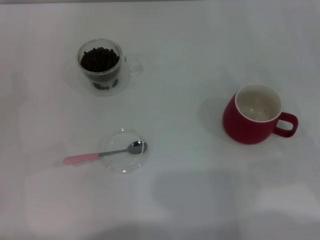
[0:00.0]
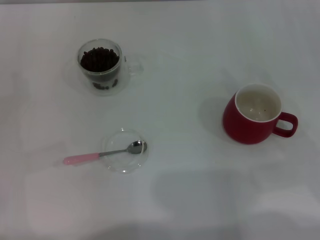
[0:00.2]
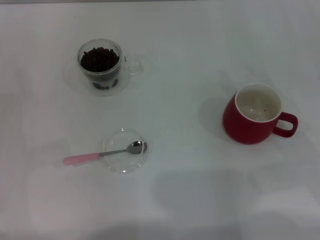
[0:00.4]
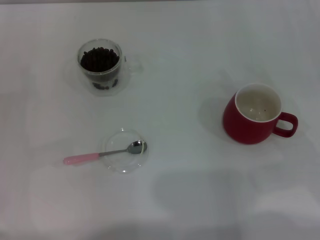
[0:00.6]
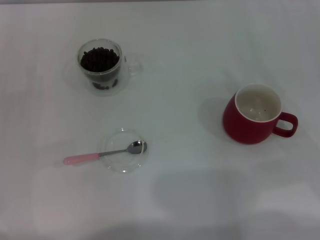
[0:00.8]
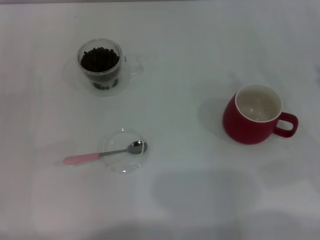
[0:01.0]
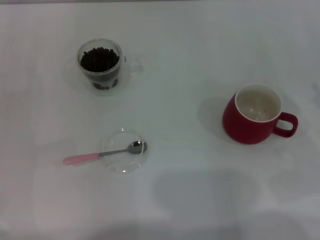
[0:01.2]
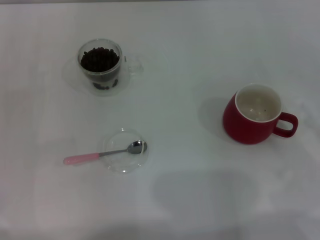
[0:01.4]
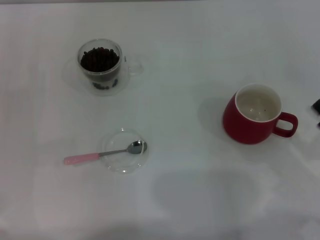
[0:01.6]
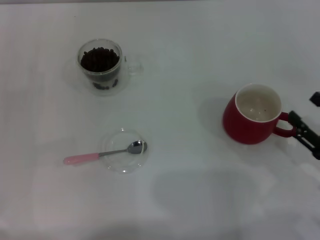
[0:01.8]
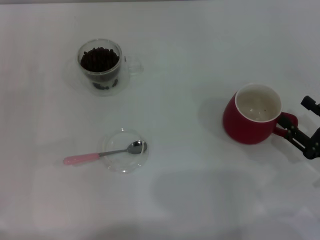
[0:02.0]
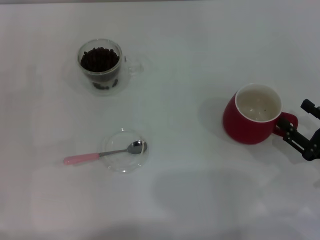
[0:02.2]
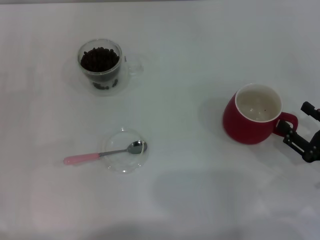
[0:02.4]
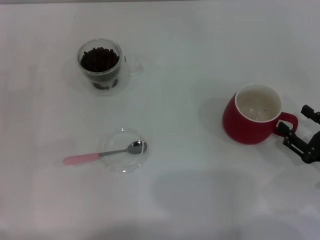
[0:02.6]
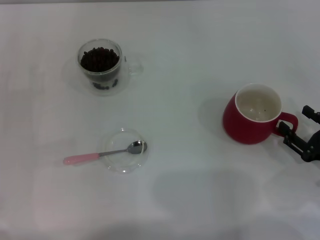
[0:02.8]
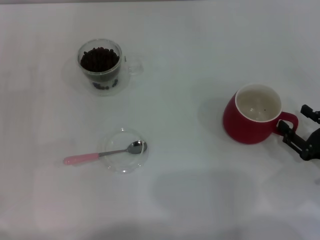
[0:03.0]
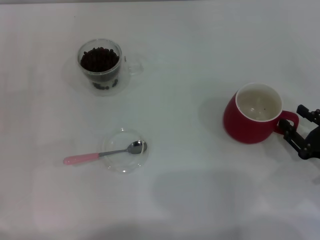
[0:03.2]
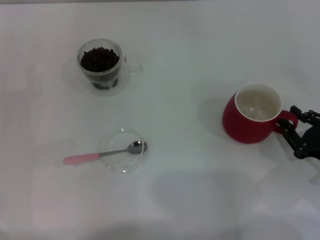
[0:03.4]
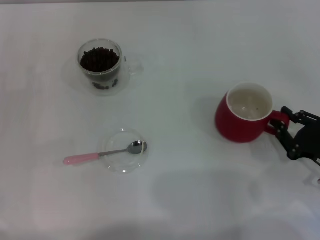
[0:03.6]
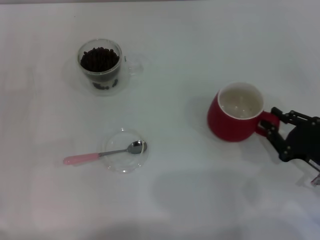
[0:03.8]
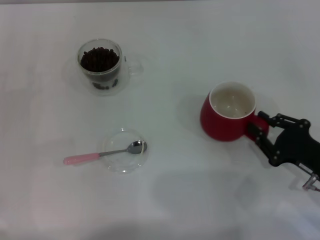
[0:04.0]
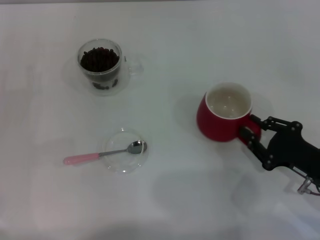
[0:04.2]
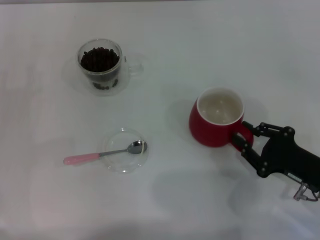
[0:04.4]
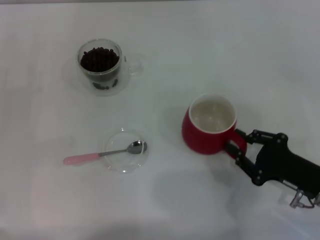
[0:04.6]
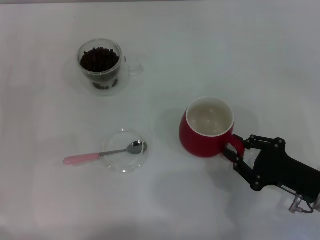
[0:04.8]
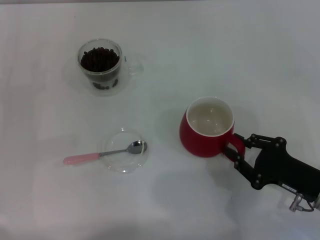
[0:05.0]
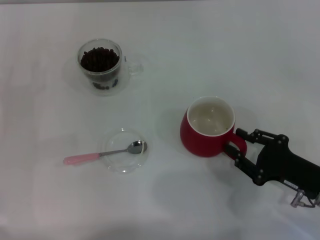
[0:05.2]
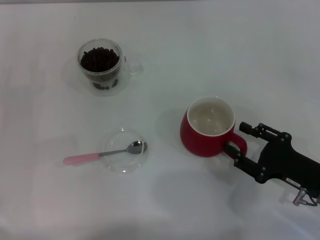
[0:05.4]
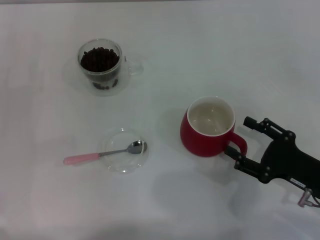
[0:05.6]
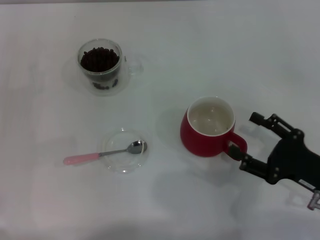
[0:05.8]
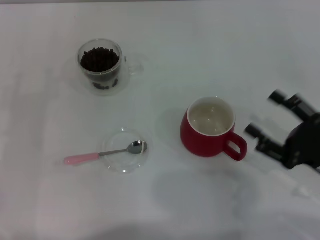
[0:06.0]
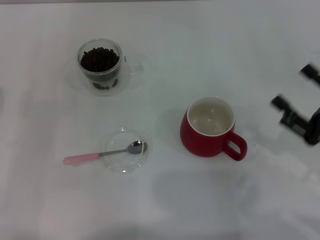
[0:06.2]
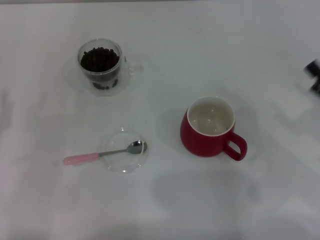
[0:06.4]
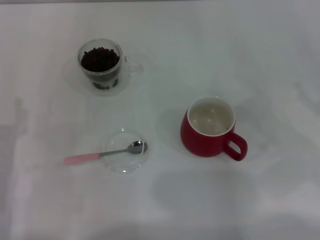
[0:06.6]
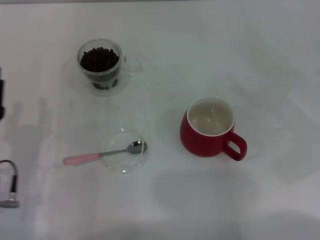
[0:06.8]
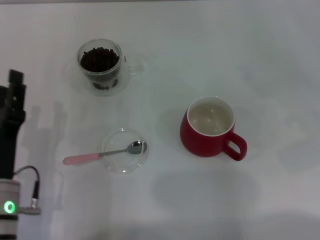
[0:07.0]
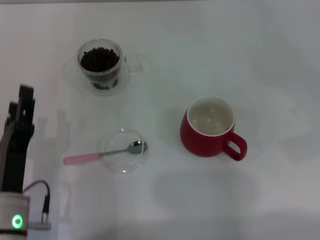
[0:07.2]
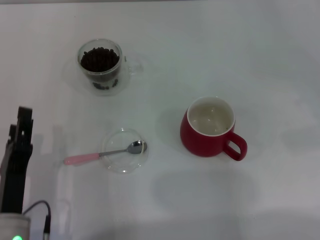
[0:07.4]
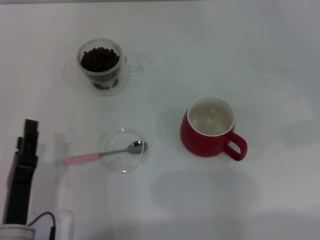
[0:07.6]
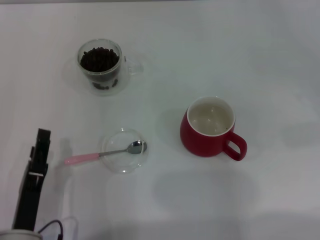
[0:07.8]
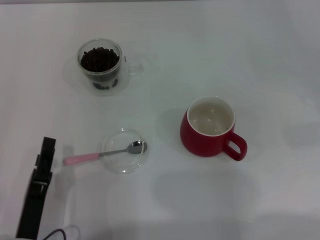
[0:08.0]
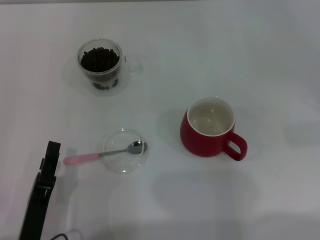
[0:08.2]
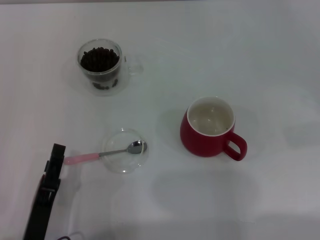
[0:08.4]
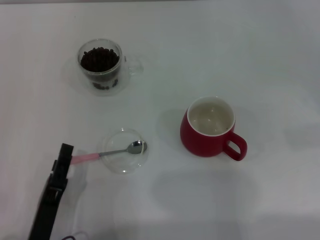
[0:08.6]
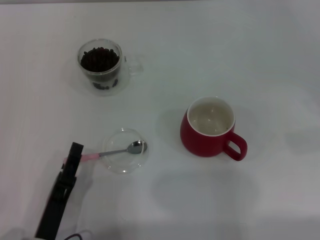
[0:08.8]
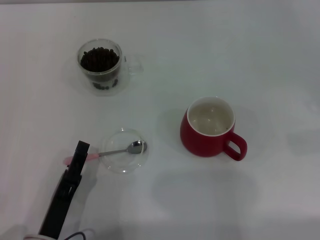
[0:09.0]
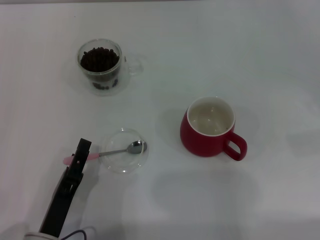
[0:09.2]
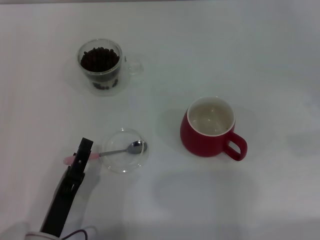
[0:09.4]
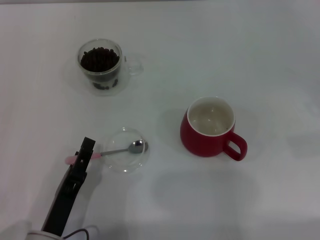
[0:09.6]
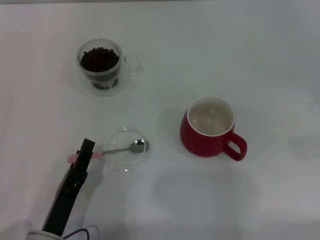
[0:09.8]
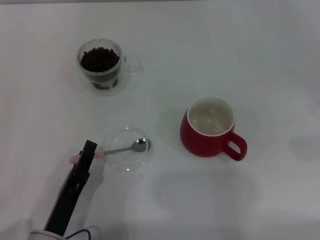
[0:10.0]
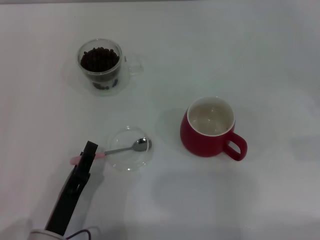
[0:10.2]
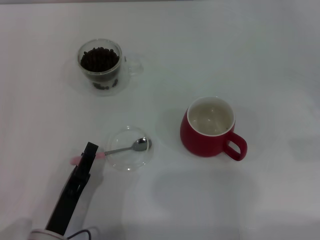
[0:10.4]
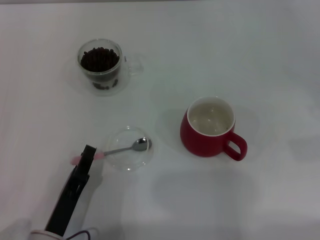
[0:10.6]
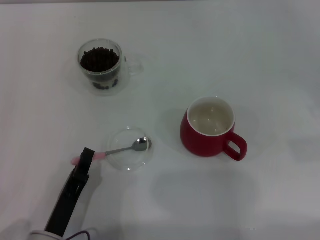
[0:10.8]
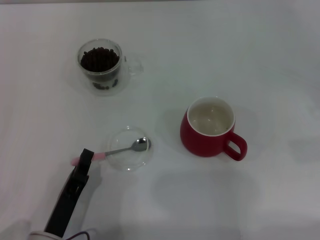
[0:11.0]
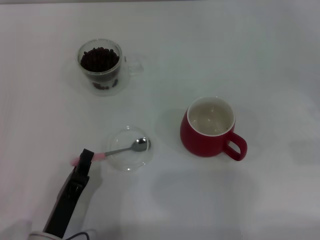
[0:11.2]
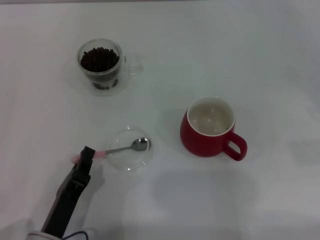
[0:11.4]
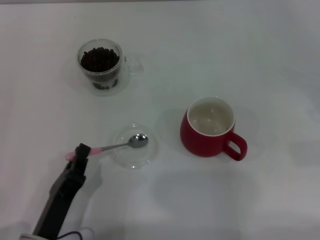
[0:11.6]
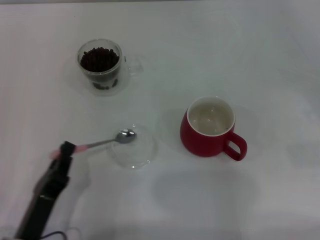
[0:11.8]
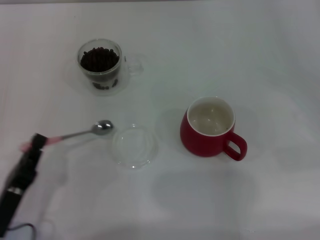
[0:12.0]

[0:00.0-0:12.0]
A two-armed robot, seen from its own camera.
Task of the whole recording: Use a pink spoon to take out the coffee beans from the glass and pour them into the red cup.
Step, 0:00.0 to 0:05.8: Move the cup to the center of view with the left gripper.
Step, 0:06.2 to 0:11.8: Pick up the spoon with the right gripper.
0:01.6 to 0:03.0: The right gripper shifts by about 5 cm.
0:03.0 to 0:04.4: The right gripper is displaced to the left by roughly 5 cm, and closes.
0:04.4 to 0:06.0: The right gripper opens its fingers.
0:06.0 to 0:07.6: The right gripper is displaced to the right, upward and forward by approximately 20 cm. The left gripper moves to the right and backward, roughly 20 cm.
0:07.6 to 0:09.0: The grippers stay close to where they were, moving slightly.
0:09.0 to 0:10.4: The left gripper closes up.
0:10.4 to 0:12.0: The left gripper moves to the left, some 5 cm, and closes up.

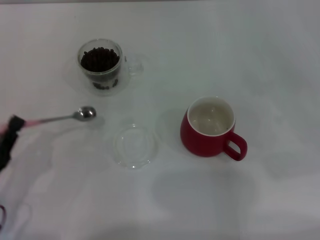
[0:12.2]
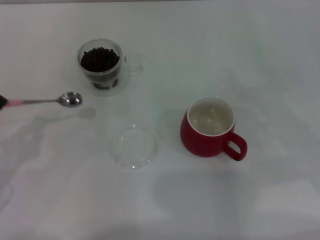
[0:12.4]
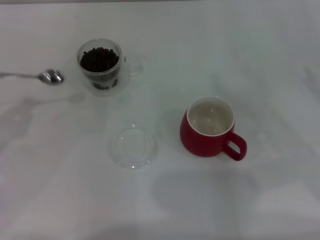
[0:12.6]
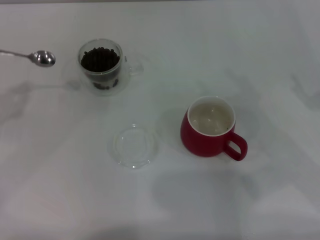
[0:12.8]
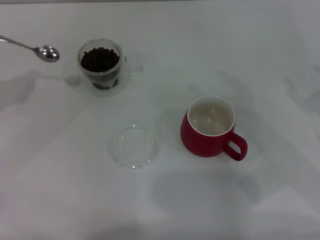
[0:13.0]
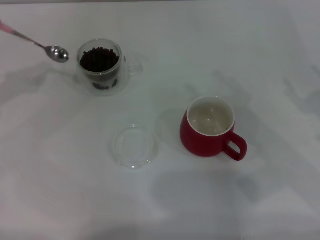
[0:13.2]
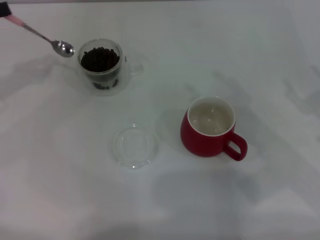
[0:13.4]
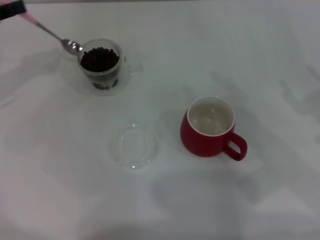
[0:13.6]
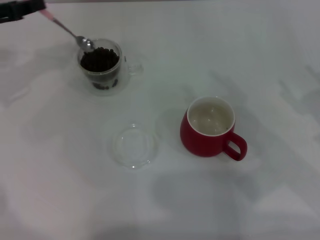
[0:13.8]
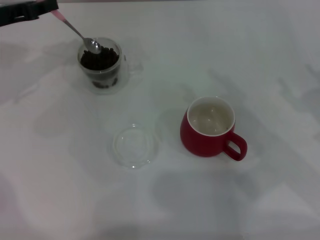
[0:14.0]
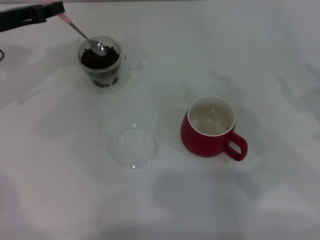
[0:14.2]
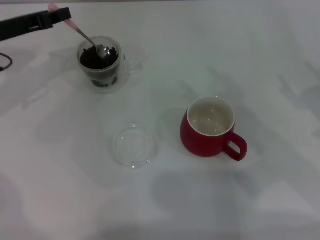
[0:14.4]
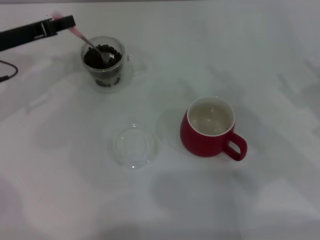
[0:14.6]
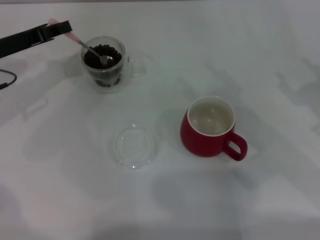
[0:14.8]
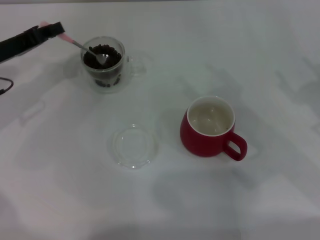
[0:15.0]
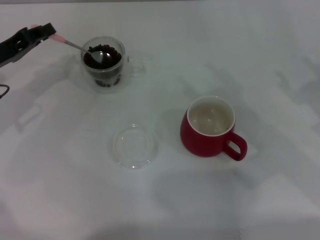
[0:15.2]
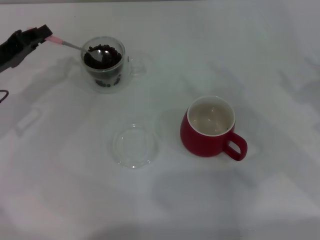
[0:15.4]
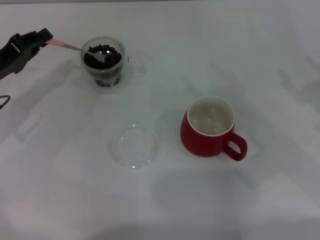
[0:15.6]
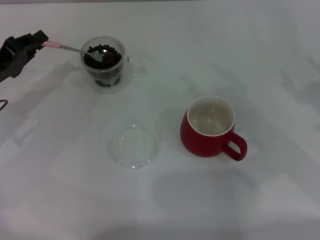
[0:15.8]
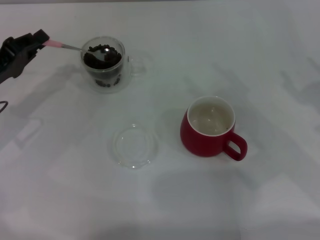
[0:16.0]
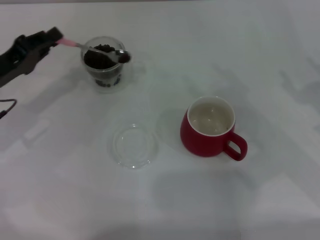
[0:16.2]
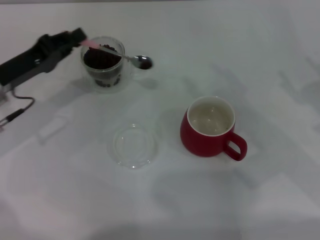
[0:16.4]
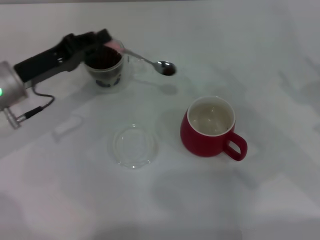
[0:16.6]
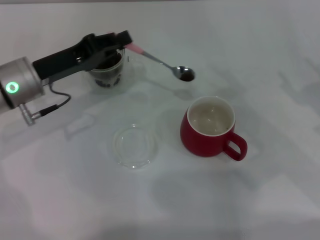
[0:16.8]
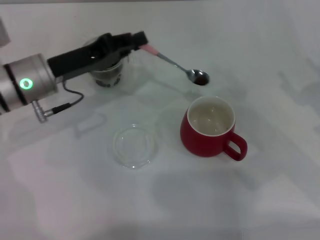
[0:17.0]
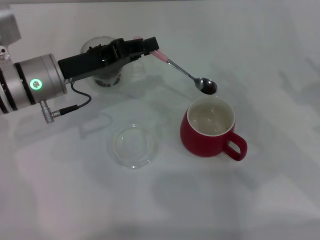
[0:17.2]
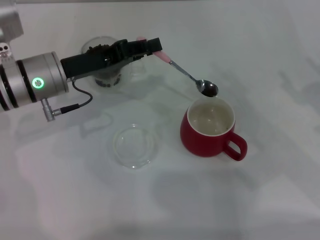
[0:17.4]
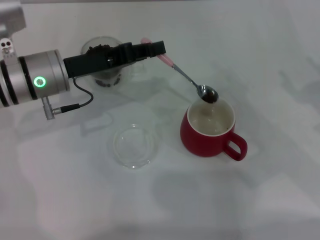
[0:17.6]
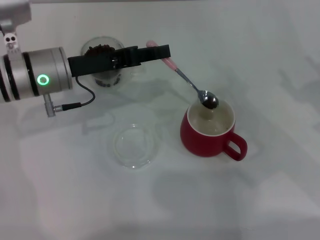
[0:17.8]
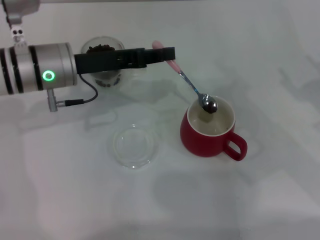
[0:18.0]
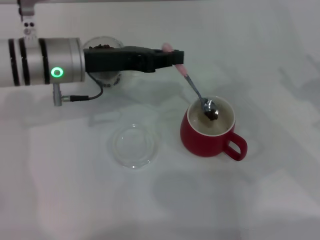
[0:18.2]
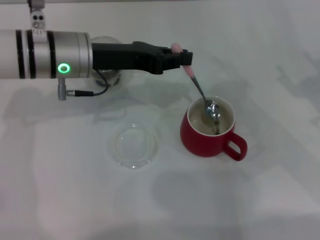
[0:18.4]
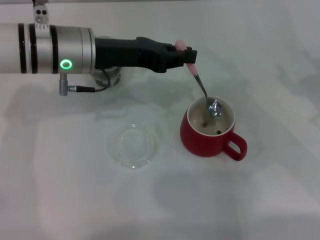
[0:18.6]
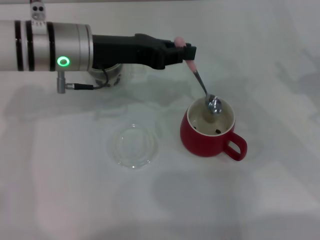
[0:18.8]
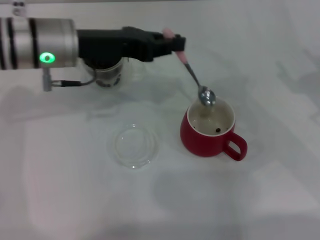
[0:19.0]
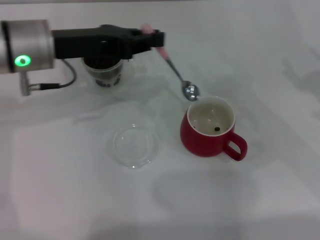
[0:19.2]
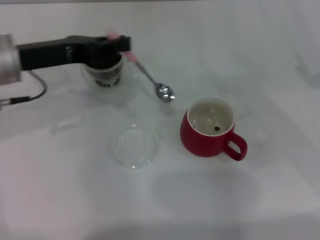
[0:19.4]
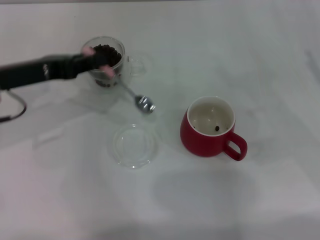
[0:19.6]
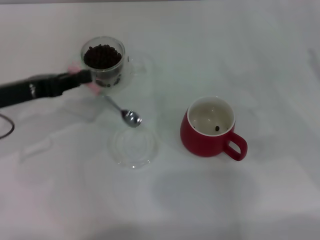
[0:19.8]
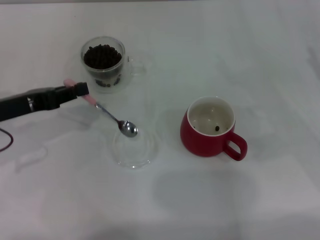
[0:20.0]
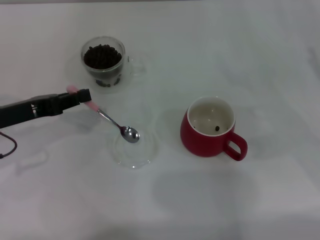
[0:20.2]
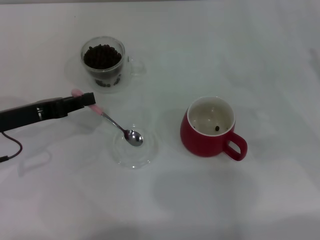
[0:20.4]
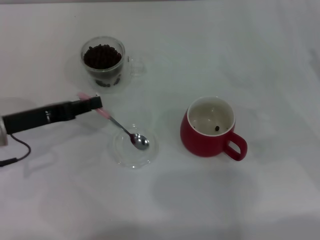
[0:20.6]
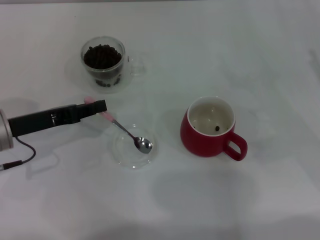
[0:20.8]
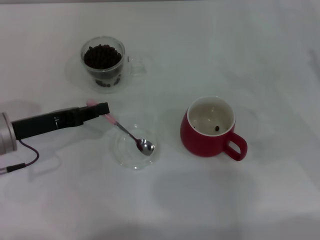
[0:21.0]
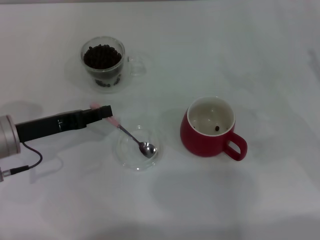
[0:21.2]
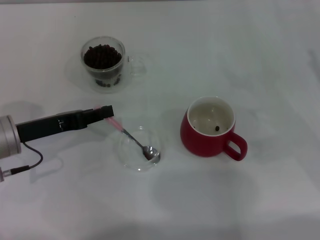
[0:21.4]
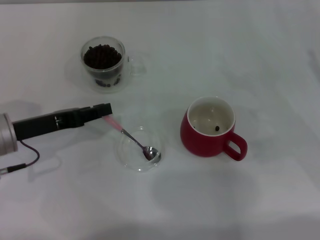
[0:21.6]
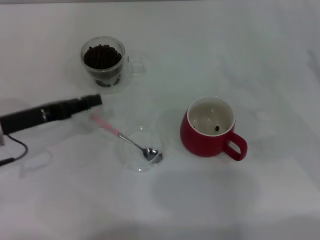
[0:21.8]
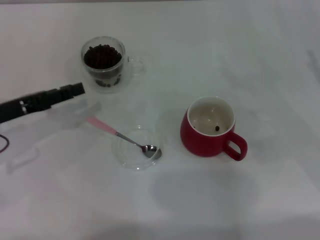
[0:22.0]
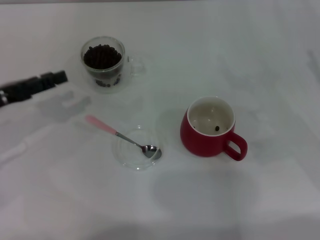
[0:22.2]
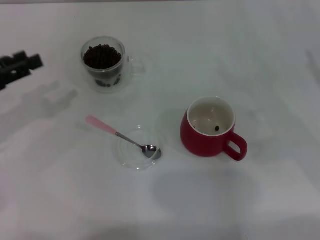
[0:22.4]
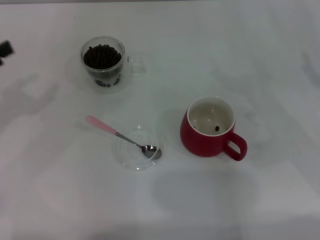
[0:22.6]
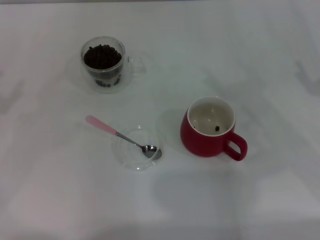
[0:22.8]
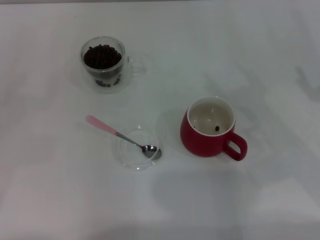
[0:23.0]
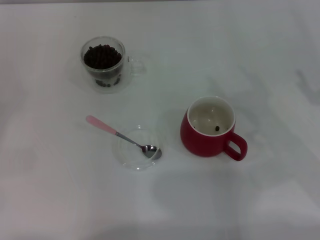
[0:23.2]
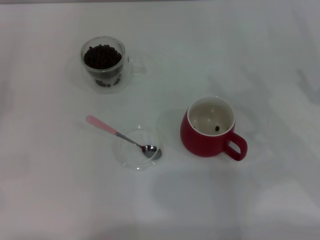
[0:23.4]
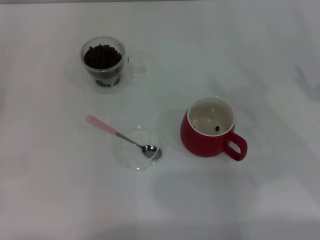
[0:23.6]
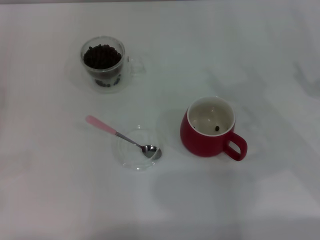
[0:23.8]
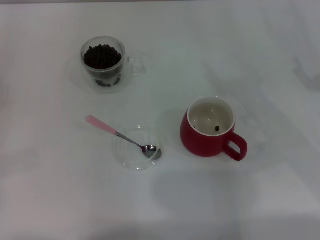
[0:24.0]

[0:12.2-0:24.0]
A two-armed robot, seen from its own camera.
Task of the whole recording: Use a pink spoon to take out the coffee beans from the glass and pour them into the red cup.
Step, 0:12.2 to 0:18.4: Scoop a spoonful of beans into the cup with the right gripper.
Step, 0:18.6 to 0:21.6: Place the spoon back in its original place with the right gripper.
0:12.2 to 0:13.6: The left gripper shifts approximately 25 cm forward and upward.
0:13.6 to 0:15.2: The left gripper goes roughly 5 cm downward.
0:15.2 to 0:16.6: The left gripper shifts roughly 5 cm to the right.
0:16.6 to 0:18.2: The left gripper moves to the right, roughly 10 cm.
0:18.2 to 0:19.6: The left gripper is displaced to the left by some 10 cm.
0:19.6 to 0:21.0: The left gripper travels downward by roughly 5 cm.
0:21.0 to 0:22.6: The left gripper shifts about 10 cm to the left and upward, and opens up.
